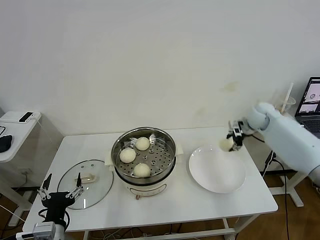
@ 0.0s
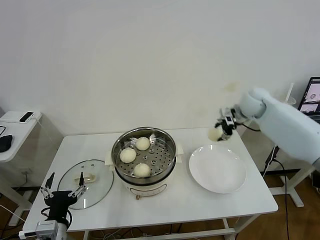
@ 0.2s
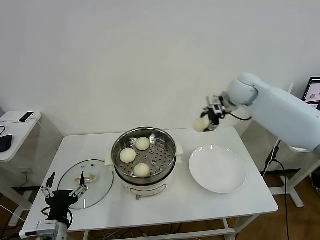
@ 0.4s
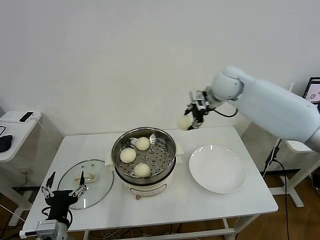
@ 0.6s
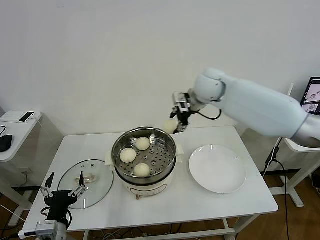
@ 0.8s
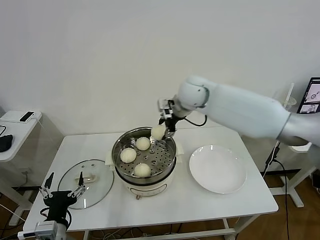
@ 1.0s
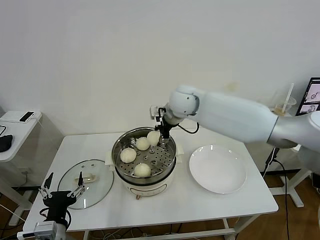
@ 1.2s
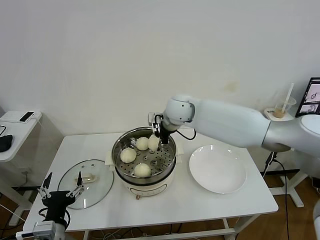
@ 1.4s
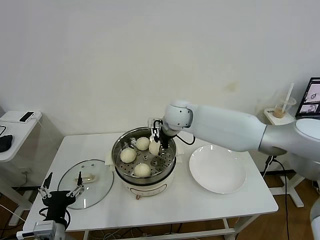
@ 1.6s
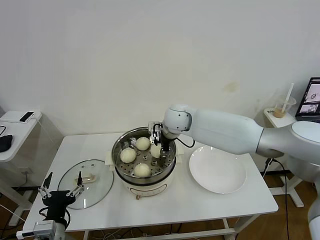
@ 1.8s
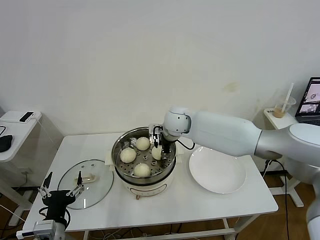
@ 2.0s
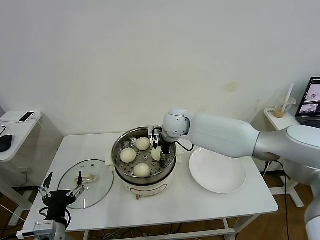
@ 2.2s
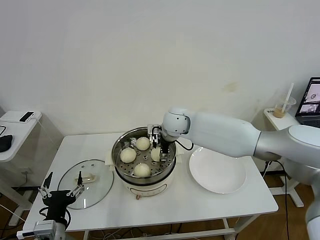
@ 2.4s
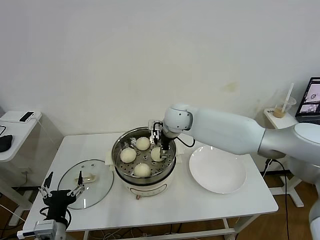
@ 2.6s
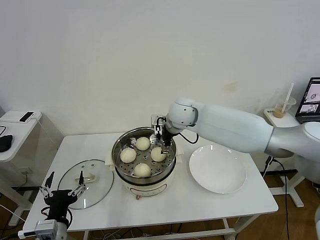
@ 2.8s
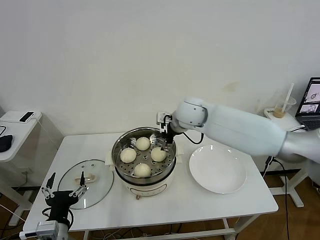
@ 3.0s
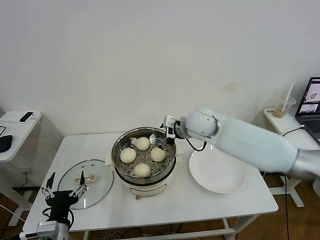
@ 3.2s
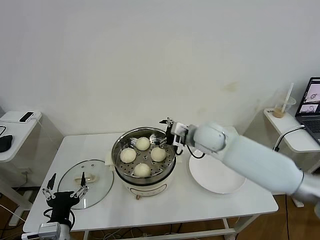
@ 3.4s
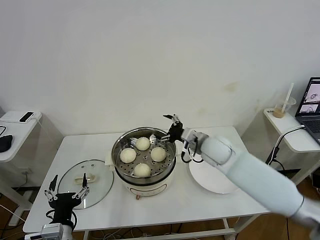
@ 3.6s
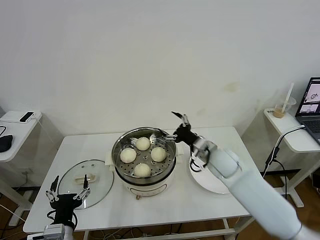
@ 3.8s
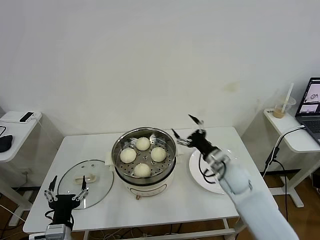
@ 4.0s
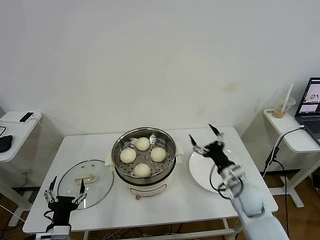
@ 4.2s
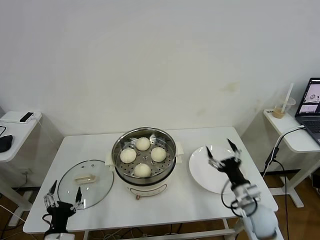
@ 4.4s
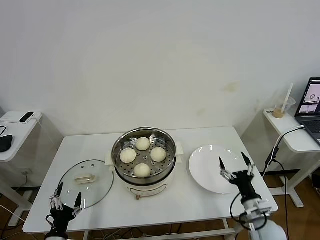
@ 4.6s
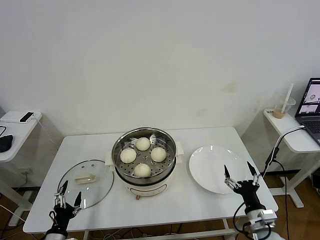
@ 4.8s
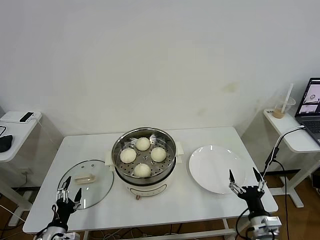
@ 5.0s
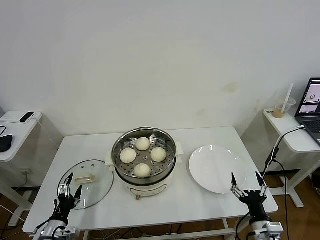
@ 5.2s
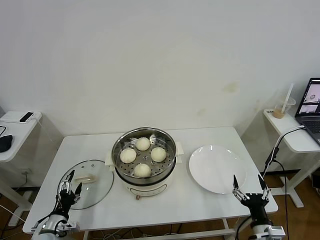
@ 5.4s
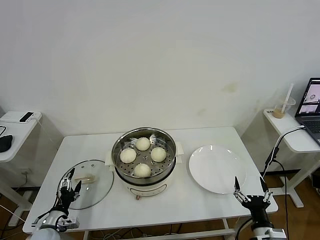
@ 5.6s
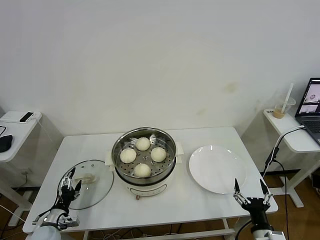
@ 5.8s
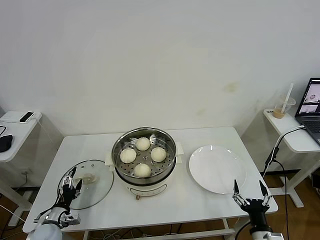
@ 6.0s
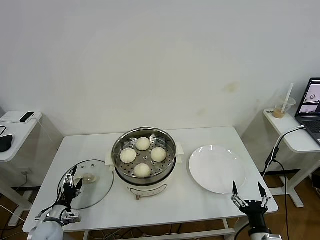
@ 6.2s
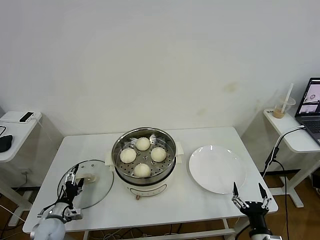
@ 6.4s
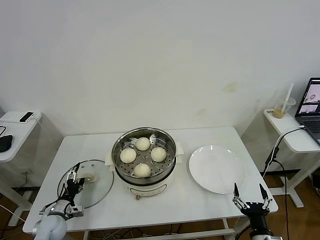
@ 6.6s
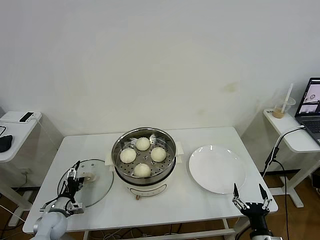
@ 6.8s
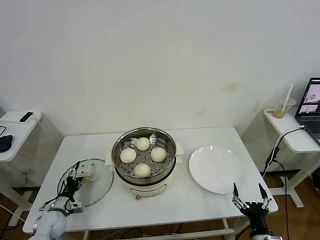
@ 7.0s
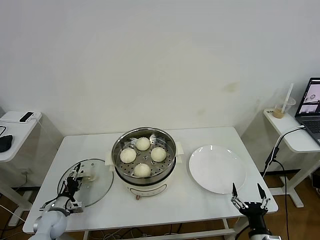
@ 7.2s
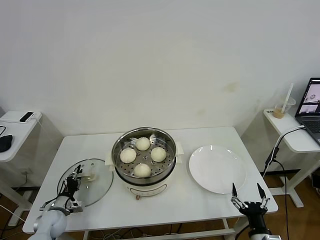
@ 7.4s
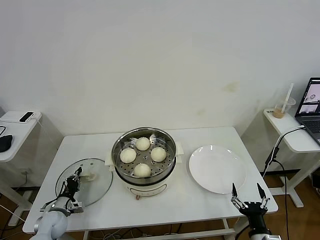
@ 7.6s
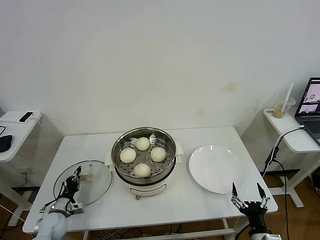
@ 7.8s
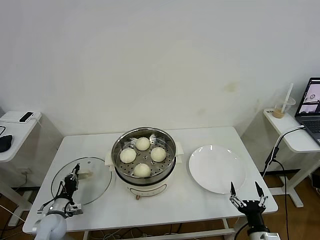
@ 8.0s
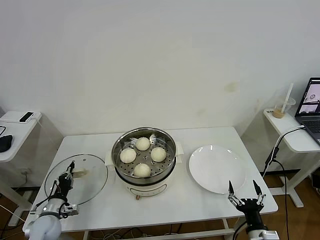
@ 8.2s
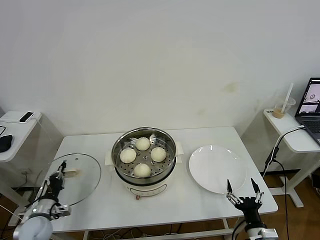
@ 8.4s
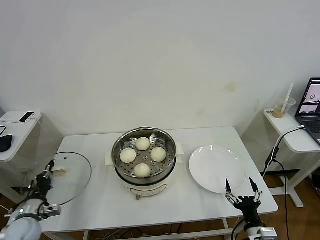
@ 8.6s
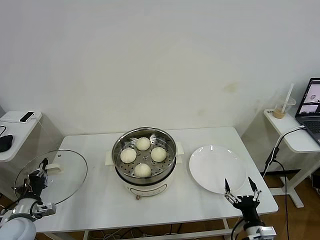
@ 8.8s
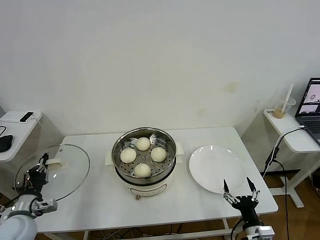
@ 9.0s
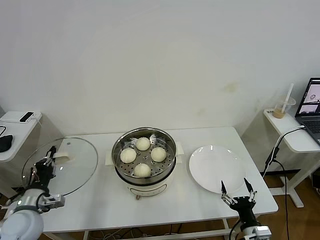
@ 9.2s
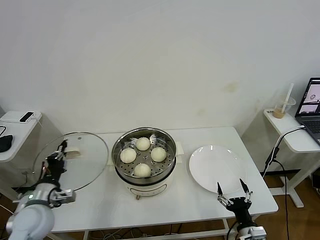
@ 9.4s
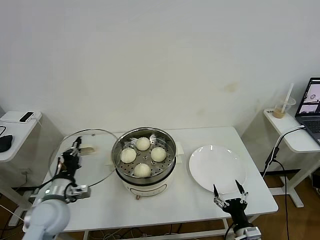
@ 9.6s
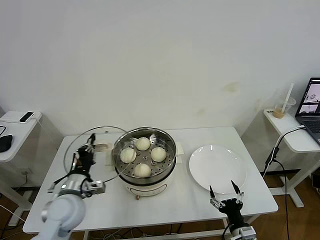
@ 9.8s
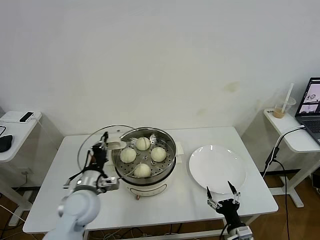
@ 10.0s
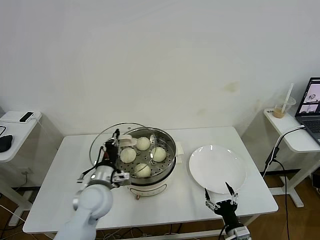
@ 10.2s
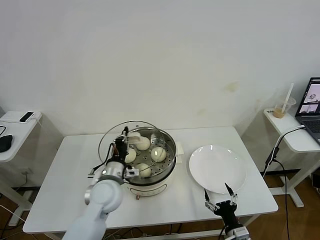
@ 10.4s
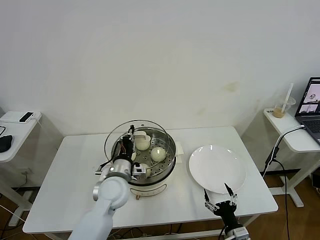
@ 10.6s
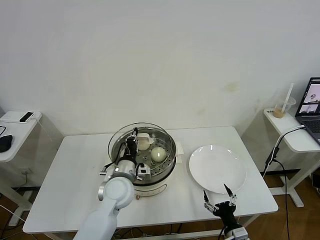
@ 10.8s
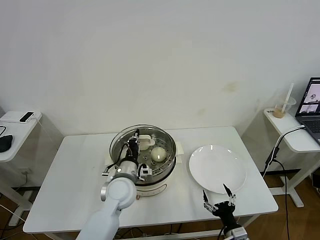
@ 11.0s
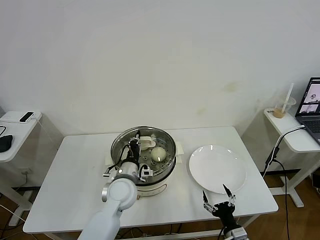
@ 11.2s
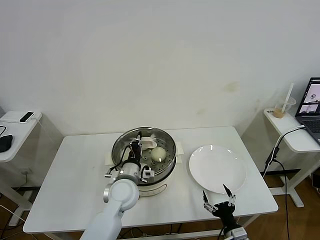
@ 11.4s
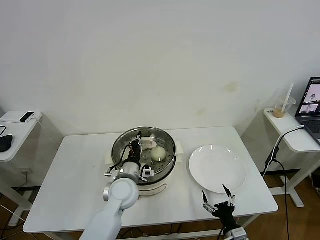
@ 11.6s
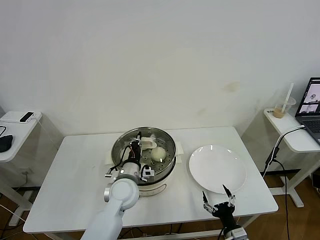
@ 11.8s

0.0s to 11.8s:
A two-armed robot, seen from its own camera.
Task of the whole recording: take steamed baozi put them in steamer then cover it.
Step, 0.0s to 2.6s: Place the baozi on the steamer with right gripper.
Step, 3.0s to 7.8s: Grasp the pot lid with left gripper.
0.0s to 1.4s: The right gripper moves to the left, about 30 cm.
1.4s to 3.0s: The right gripper opens.
3.0s to 4.4s: The left gripper heads downward, covering approximately 10 cm. Meanwhile the right gripper is displaced backward, downward and to the right by roughly 40 cm.
4.4s to 6.0s: The left gripper is displaced forward, to the left and downward by about 15 cm; the right gripper heads backward, covering roughly 15 cm.
6.0s to 7.4s: The left gripper goes approximately 5 cm forward, and closes its fingers.
7.4s to 8.8s: The left gripper goes about 15 cm upward and backward, and closes.
8.8s to 10.4s: The left gripper goes about 25 cm to the right. The right gripper ends up approximately 5 cm from where it was.
10.4s to 11.8s: The left gripper changes place by some 5 cm.

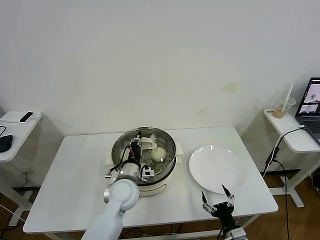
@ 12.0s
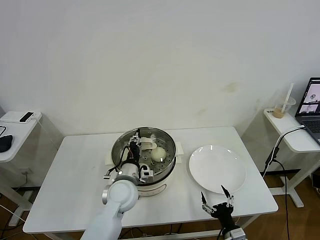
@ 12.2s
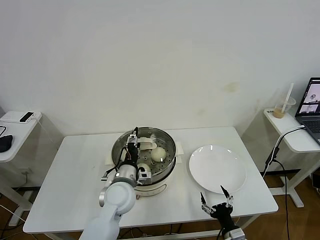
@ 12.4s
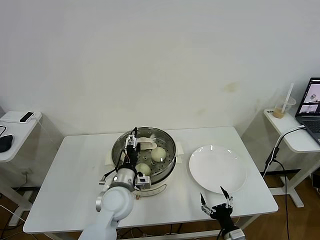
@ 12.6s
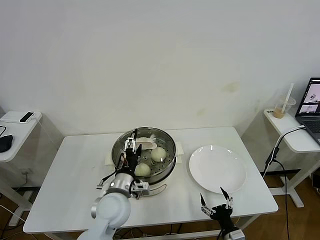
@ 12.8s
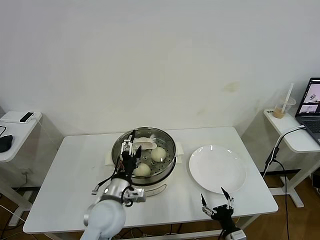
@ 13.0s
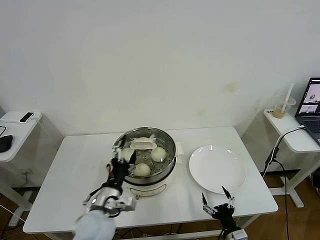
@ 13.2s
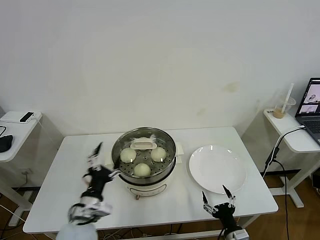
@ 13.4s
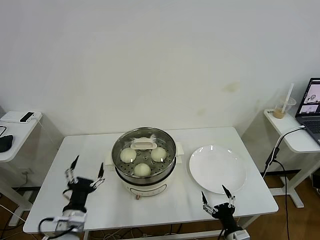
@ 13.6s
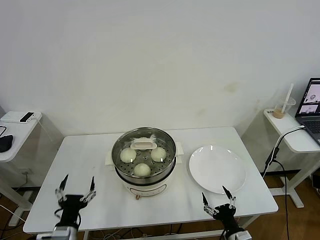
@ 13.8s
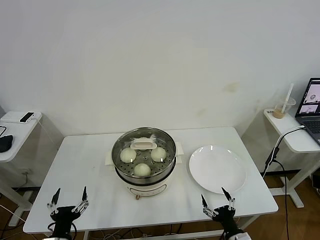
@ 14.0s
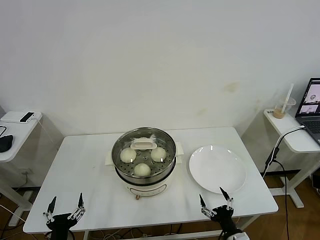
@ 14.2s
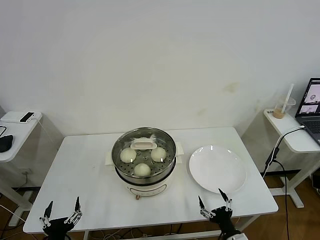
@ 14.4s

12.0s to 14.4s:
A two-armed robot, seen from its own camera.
Task of the whole recording: take steamed baozi put them in steamer then cover it.
12.0s to 13.2s: The left gripper heads backward, covering some 10 cm, and opens up.
13.2s to 14.4s: The left gripper is displaced backward, to the left and downward by about 20 cm.
